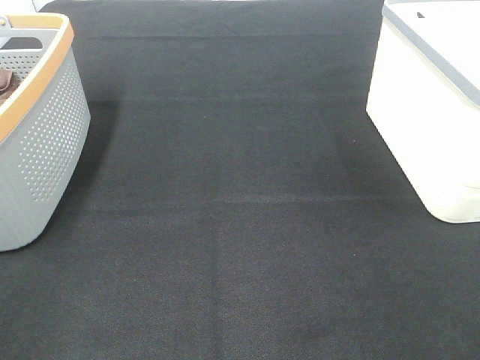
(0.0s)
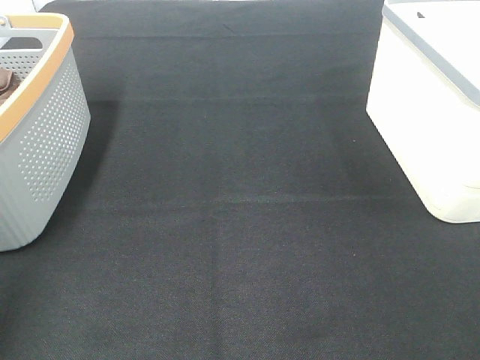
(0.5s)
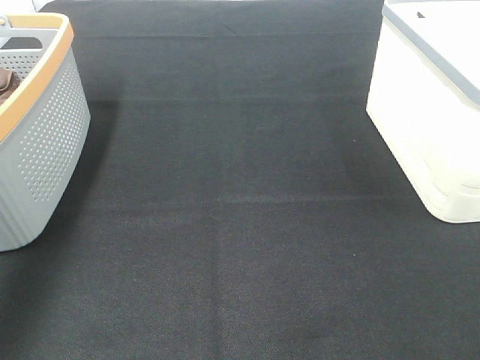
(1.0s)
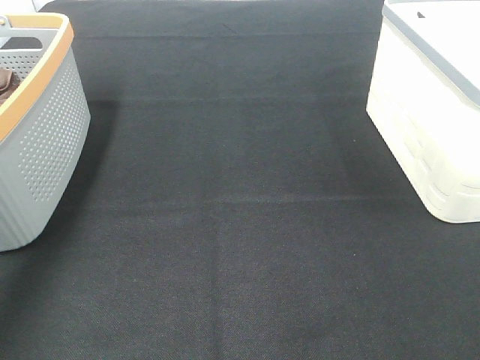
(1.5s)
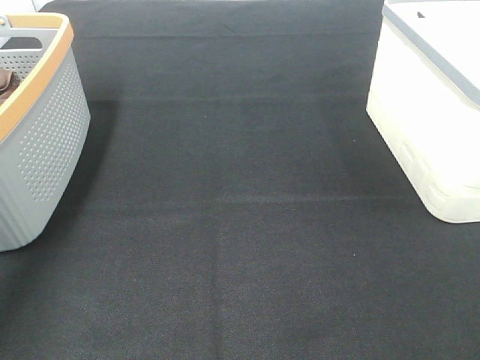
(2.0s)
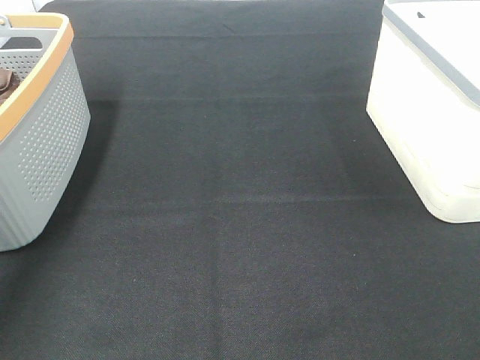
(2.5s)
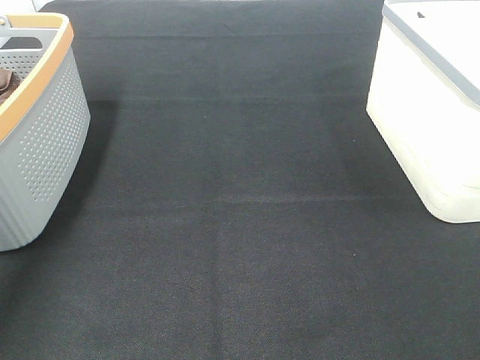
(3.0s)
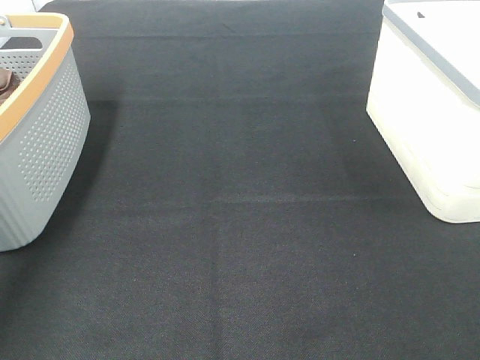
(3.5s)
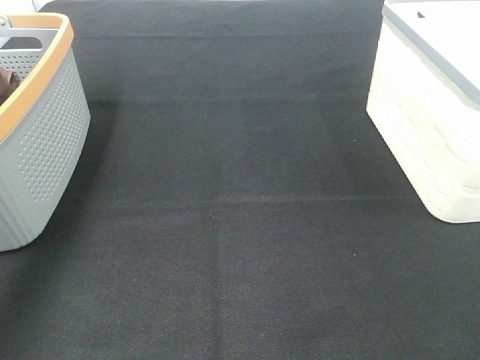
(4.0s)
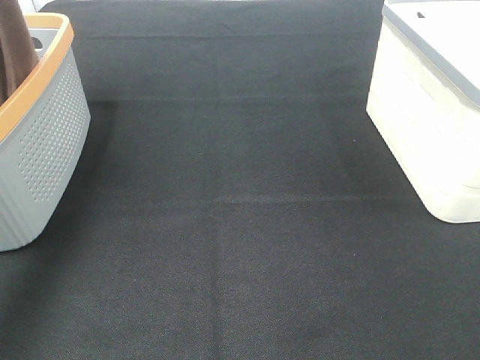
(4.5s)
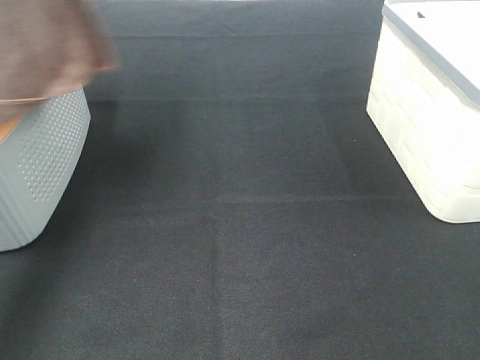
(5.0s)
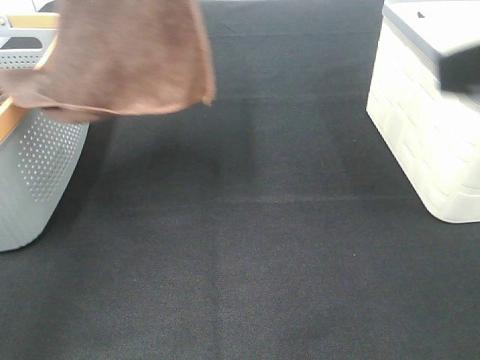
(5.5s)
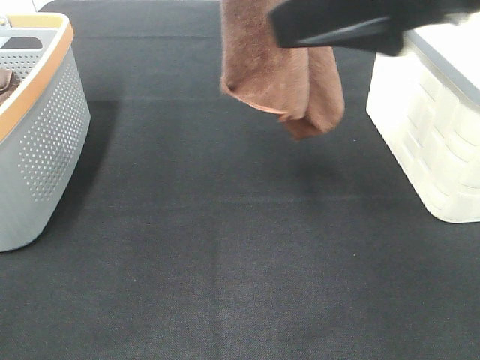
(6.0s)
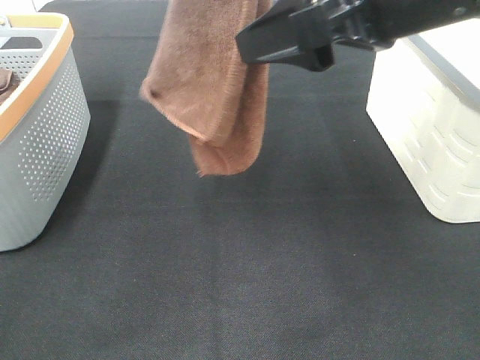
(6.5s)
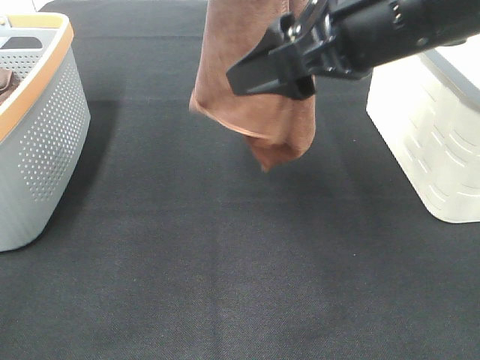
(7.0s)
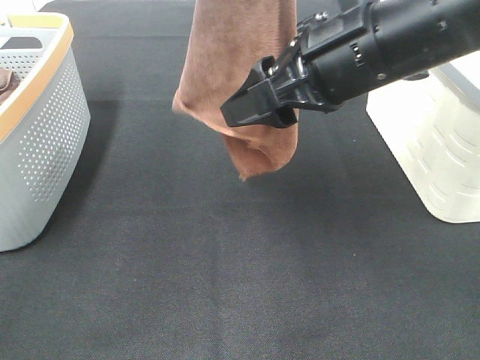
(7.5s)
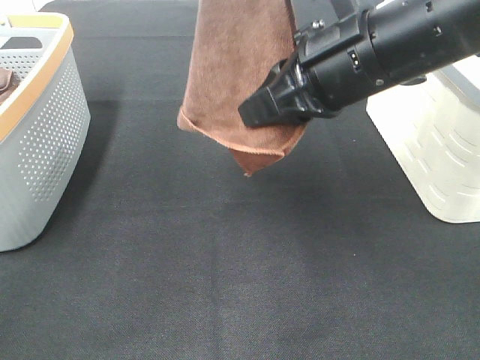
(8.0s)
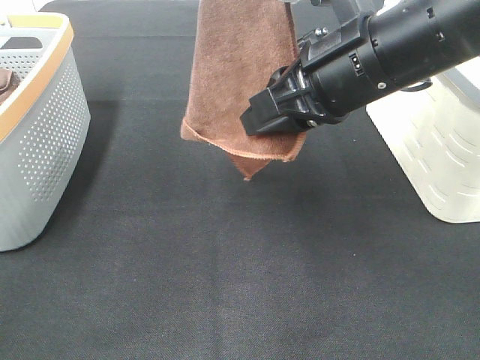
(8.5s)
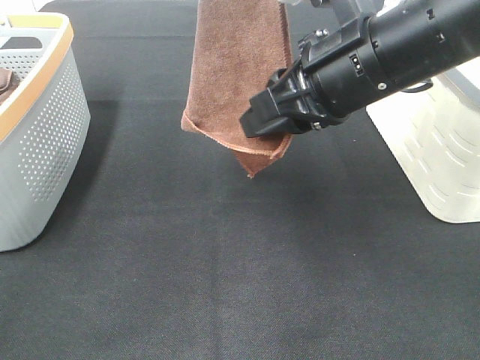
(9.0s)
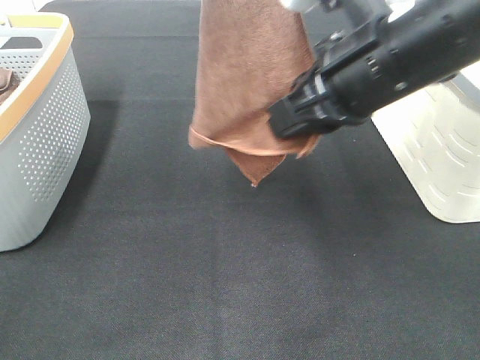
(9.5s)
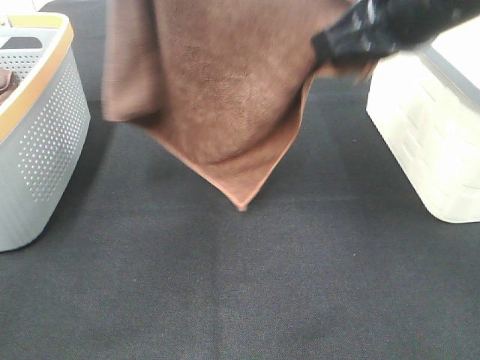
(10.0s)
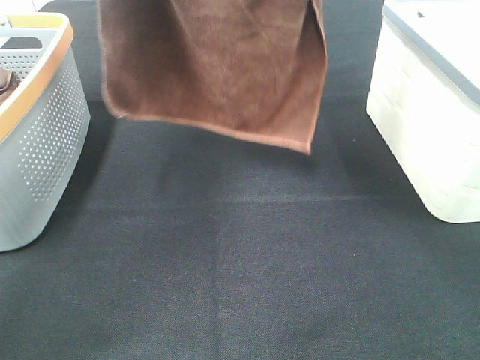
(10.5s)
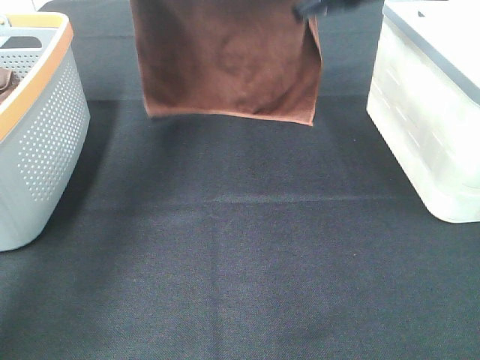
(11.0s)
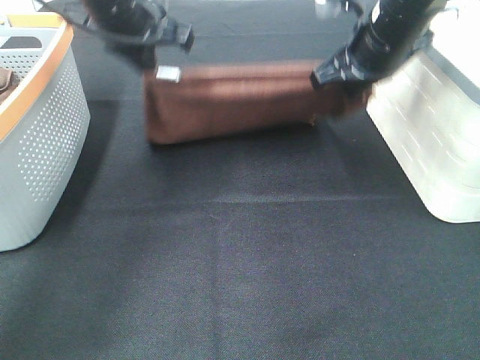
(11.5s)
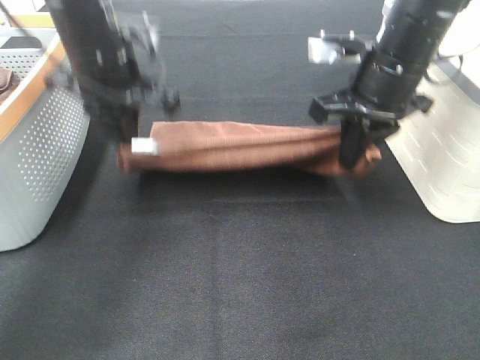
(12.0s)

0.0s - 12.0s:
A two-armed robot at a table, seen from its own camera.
Task of the whole recording: Remove the towel and place it.
Step, 4.0s - 7.0s: Right hand: grab a corner of the brown towel and straighten it.
Step, 7.5s - 9.0s: Left hand: spread the brown towel flat on the table.
Step, 7.5s - 9.0s: Right hand: spread the brown towel flat on the table.
0.0s - 2.0s: The left gripper goes roughly 40 cm forward.
4.0s - 6.0s: The right gripper travels forward, to the left and upward by some 25 cm. The left gripper shifts approximately 20 cm to the right.
6.0s - 8.0s: The right gripper shifts roughly 10 cm downward and forward, and closes up.
8.0s - 10.0s: The left gripper moves some 5 cm. The right gripper heads upward, covering about 5 cm.
10.0s - 12.0s: The right gripper is displaced downward and forward by about 15 cm, while the left gripper is displaced downward by approximately 25 cm.

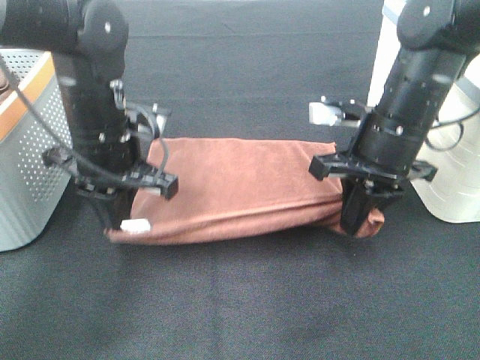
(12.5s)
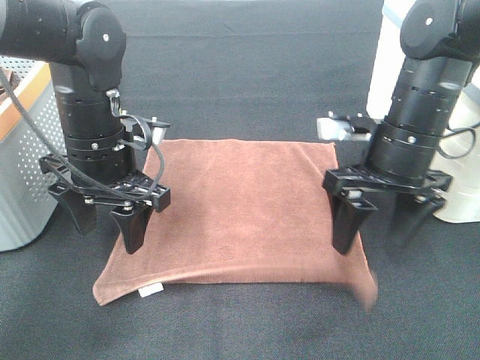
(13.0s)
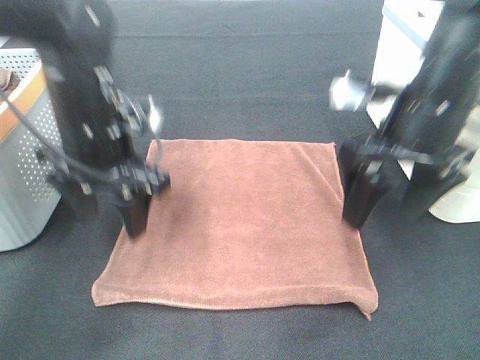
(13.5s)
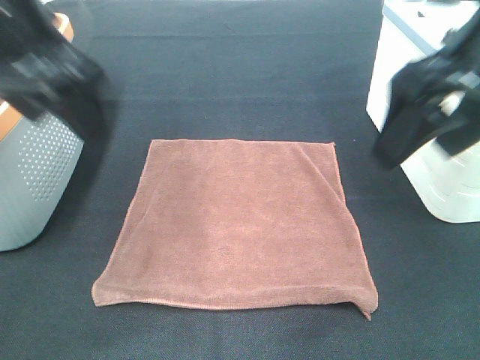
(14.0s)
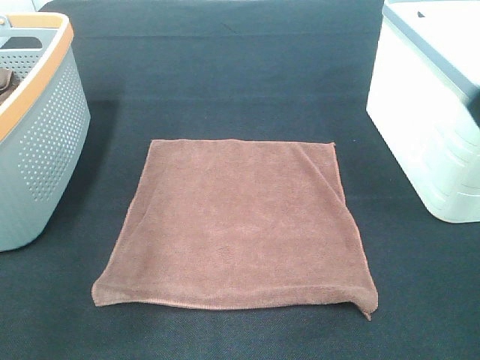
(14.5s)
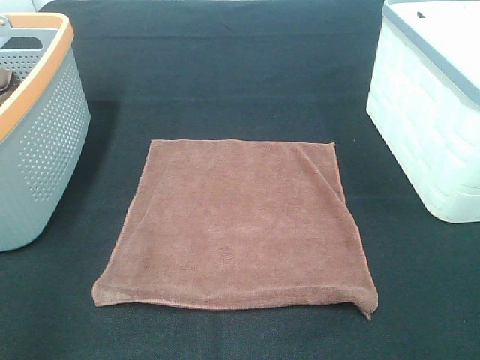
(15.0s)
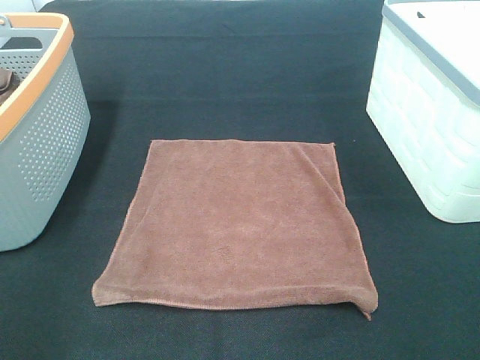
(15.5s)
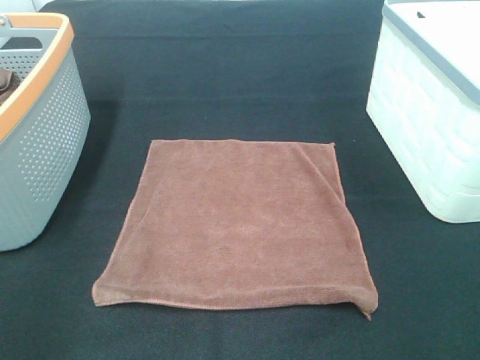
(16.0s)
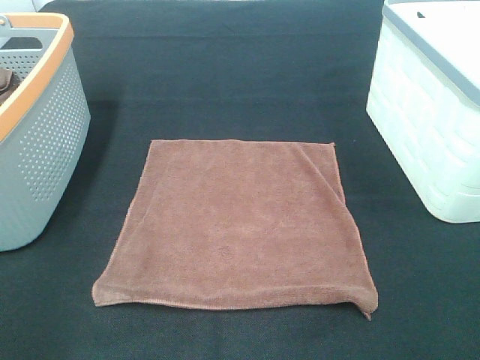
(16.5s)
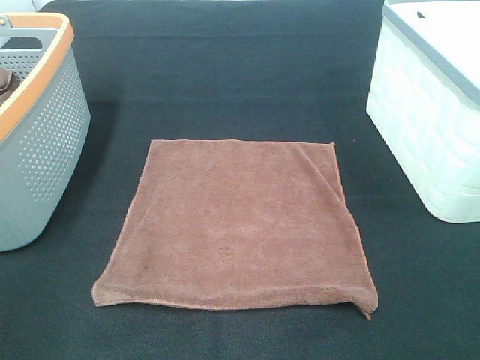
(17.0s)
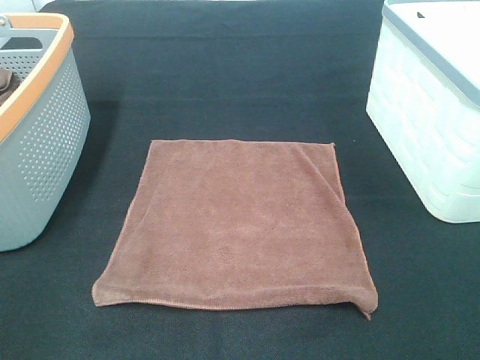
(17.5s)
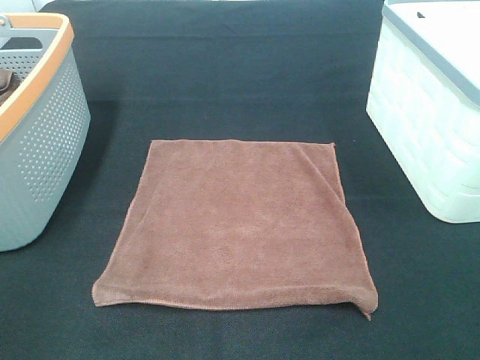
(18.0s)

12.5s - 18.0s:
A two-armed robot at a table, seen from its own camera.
Task of the whole recording: Remove the towel and place it.
12.5s - 14.5s: The right gripper goes roughly 25 cm upward and backward, and opens up. Meanwhile the left gripper travels upward, backward and to the left by about 25 cm, and opens.
14.5s - 16.0s: The left gripper heads backward, downward and to the left, covering about 15 cm. Meanwhile the right gripper travels backward and downward by approximately 15 cm.

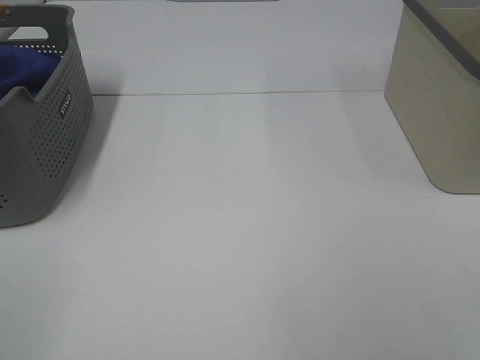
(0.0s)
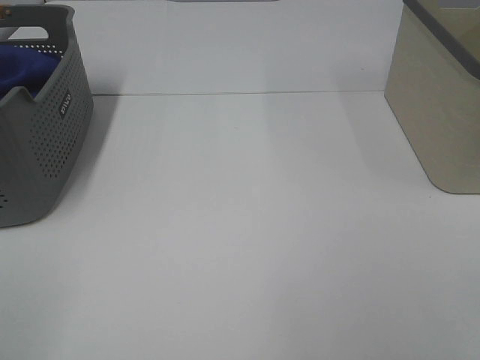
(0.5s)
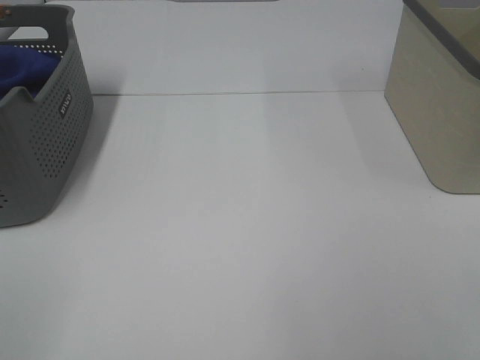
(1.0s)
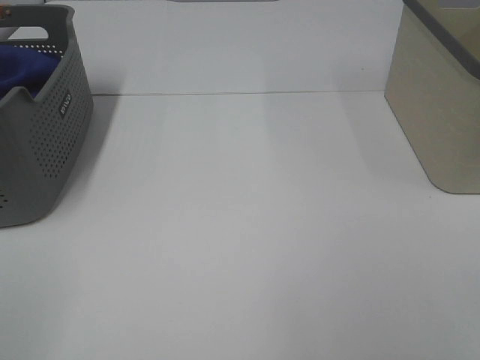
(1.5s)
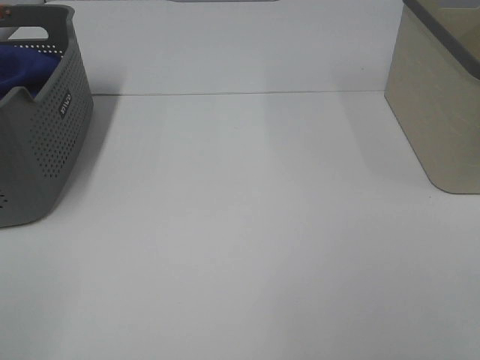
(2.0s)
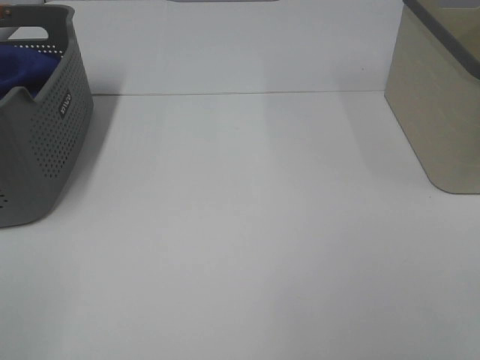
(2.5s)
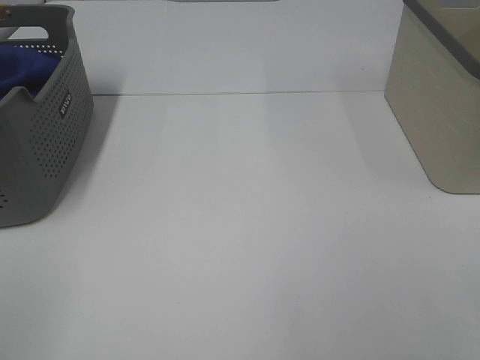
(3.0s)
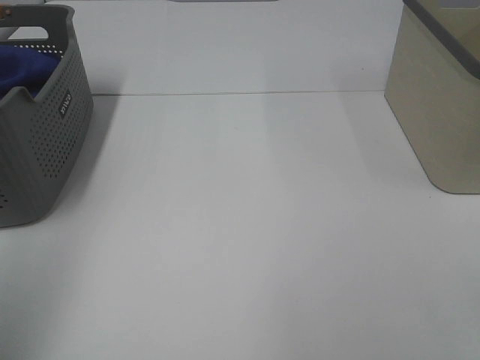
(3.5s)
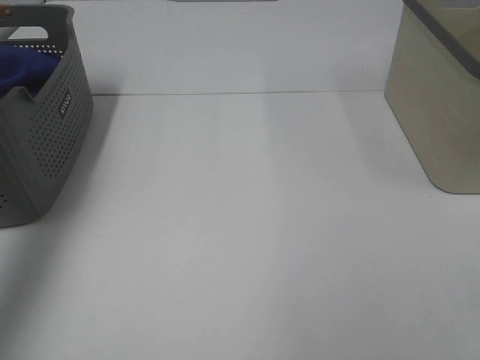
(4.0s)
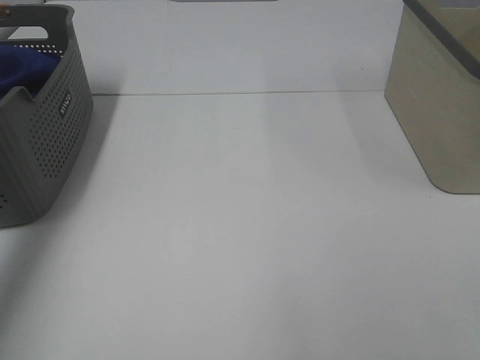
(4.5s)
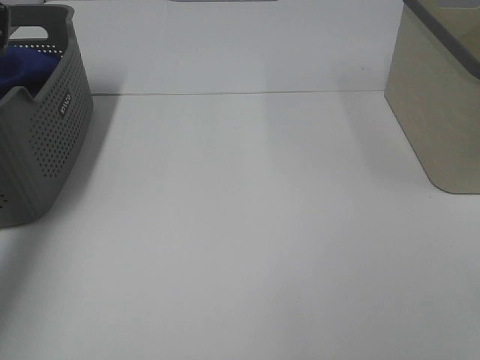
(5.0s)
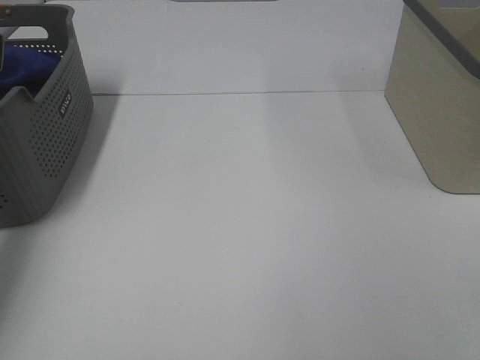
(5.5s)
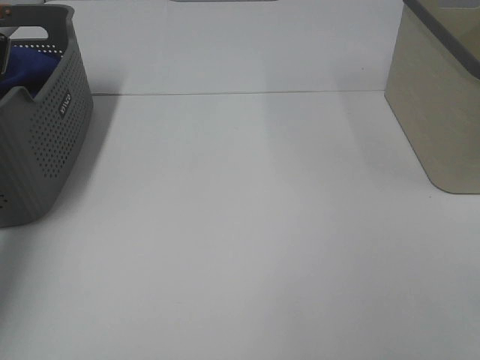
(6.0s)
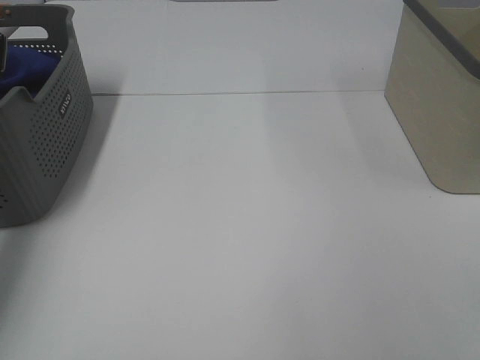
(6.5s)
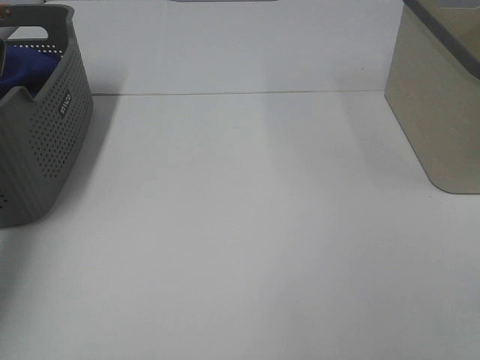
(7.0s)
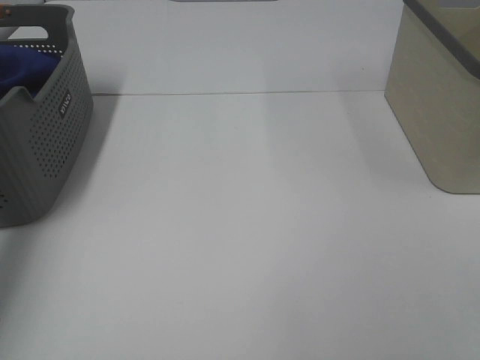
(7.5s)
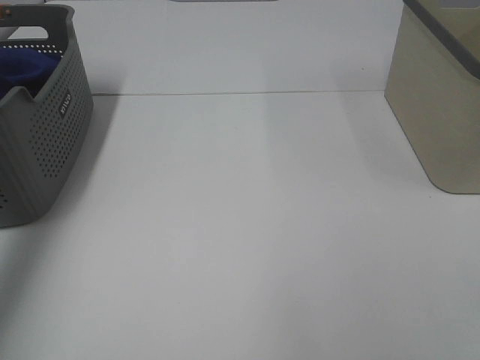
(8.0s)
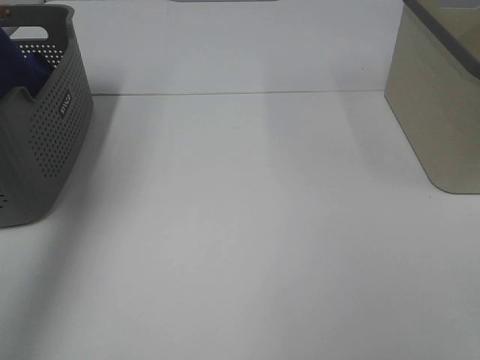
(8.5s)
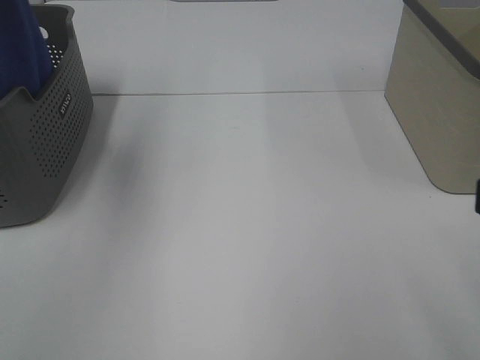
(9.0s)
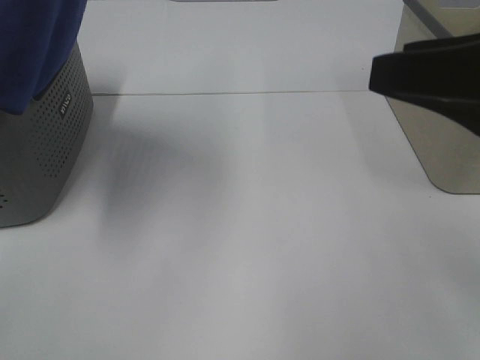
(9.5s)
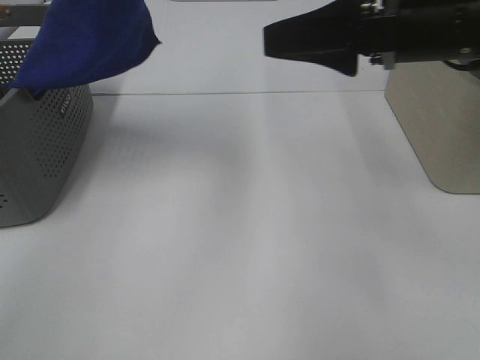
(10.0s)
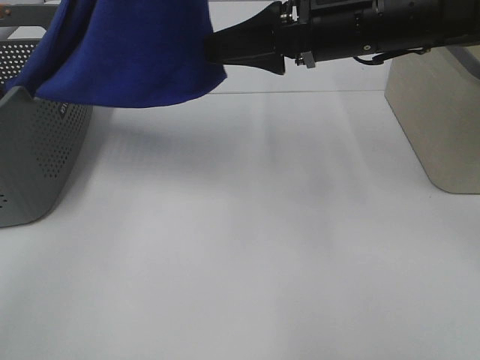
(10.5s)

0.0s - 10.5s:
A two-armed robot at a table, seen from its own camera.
Task of the whole recording: Remove the towel and place it.
0.0s - 2.0s: Both grippers stay about where they are.
2.0s - 4.0s: The left gripper is displaced forward and upward by roughly 35 cm.
4.0s - 6.5s: The left gripper shifts about 25 cm downward and forward, and closes up.
6.5s - 8.5s: The left gripper is displaced upward and backward by approximately 30 cm.
8.5s - 10.5s: The right gripper is displaced forward and to the left by about 35 cm; the left gripper heads to the right, covering some 20 cm.
